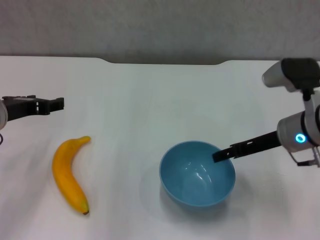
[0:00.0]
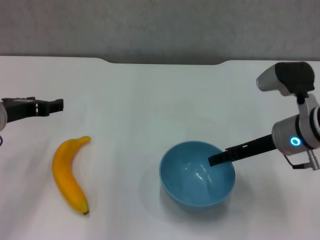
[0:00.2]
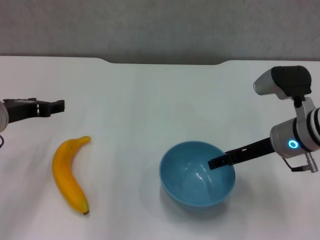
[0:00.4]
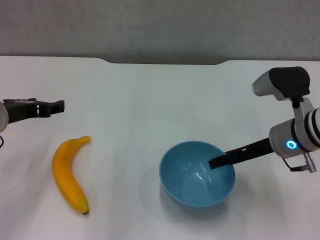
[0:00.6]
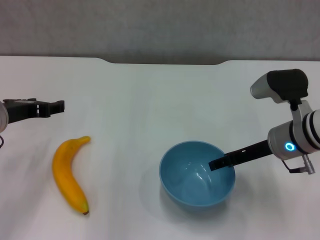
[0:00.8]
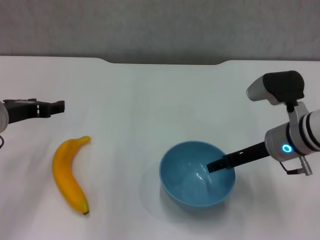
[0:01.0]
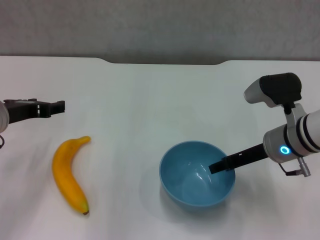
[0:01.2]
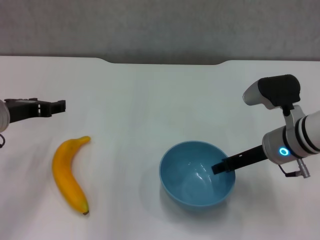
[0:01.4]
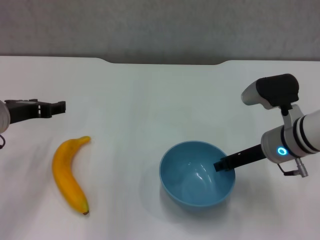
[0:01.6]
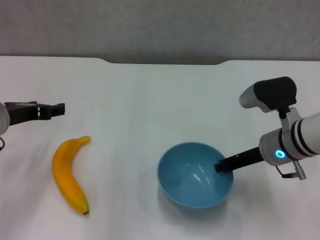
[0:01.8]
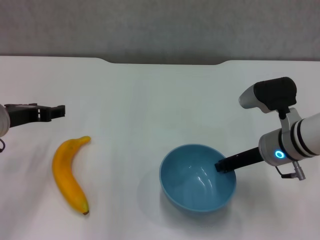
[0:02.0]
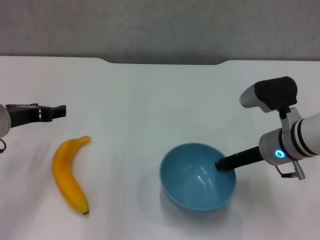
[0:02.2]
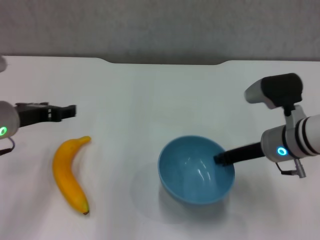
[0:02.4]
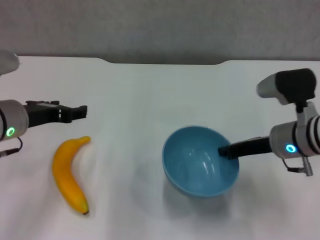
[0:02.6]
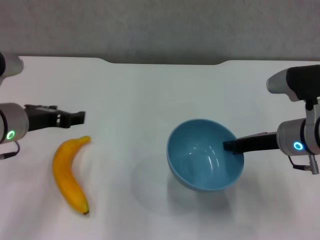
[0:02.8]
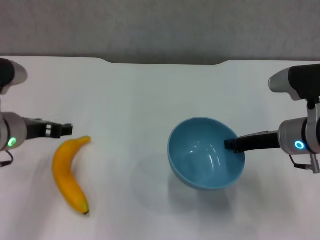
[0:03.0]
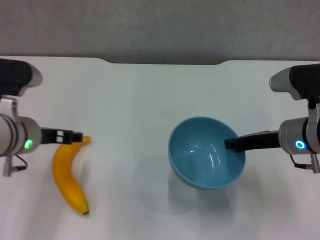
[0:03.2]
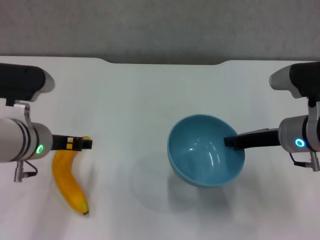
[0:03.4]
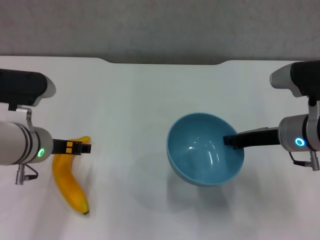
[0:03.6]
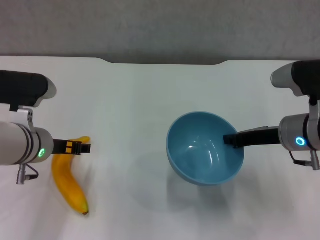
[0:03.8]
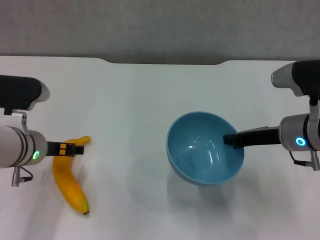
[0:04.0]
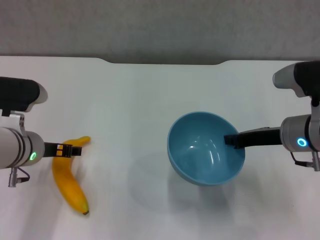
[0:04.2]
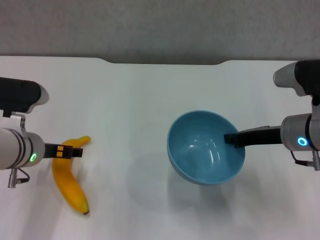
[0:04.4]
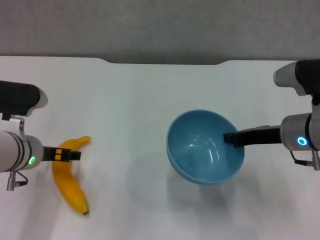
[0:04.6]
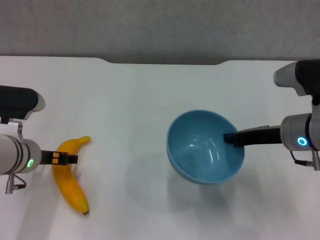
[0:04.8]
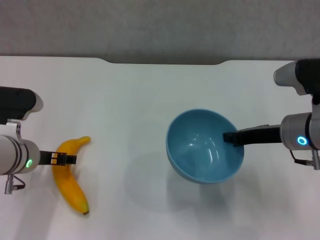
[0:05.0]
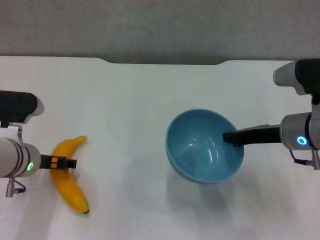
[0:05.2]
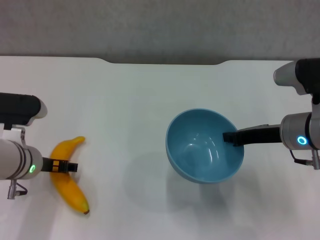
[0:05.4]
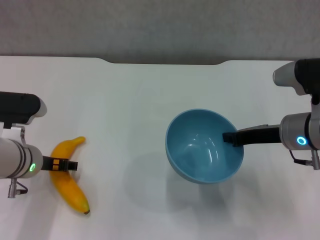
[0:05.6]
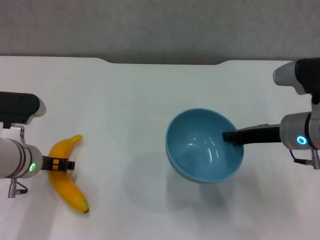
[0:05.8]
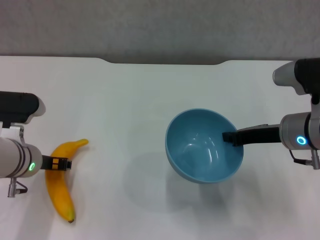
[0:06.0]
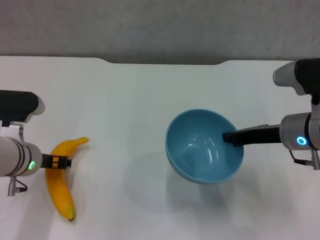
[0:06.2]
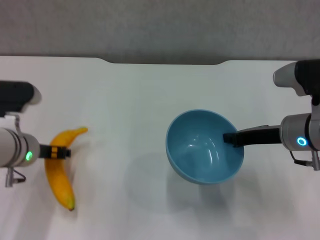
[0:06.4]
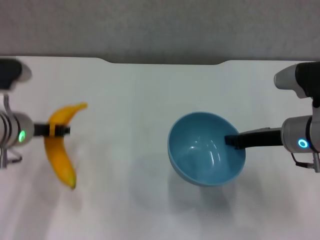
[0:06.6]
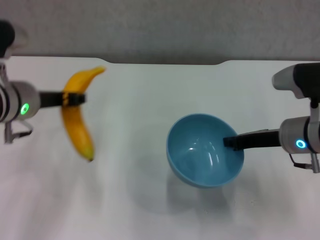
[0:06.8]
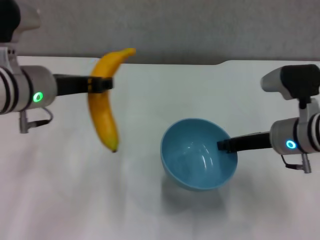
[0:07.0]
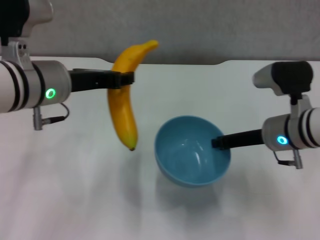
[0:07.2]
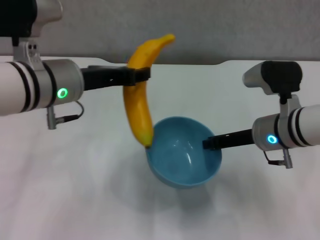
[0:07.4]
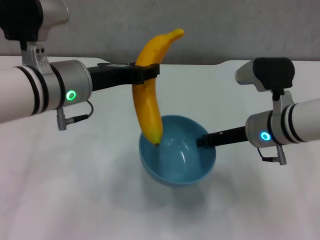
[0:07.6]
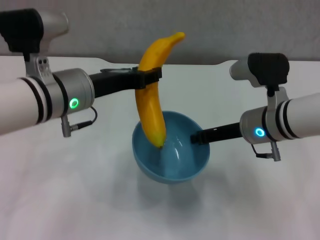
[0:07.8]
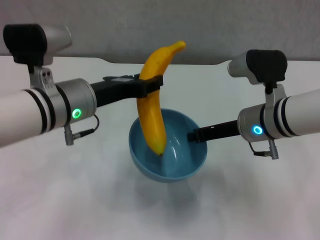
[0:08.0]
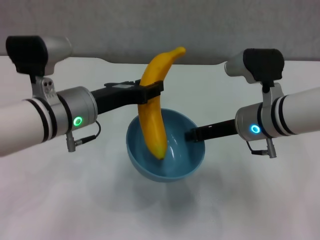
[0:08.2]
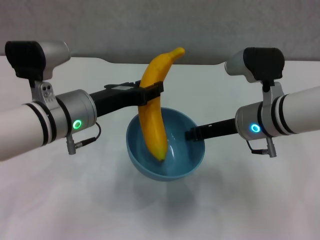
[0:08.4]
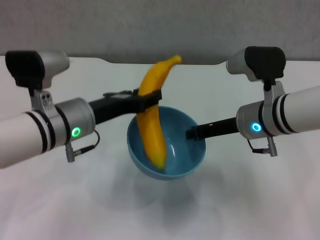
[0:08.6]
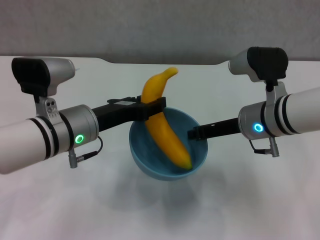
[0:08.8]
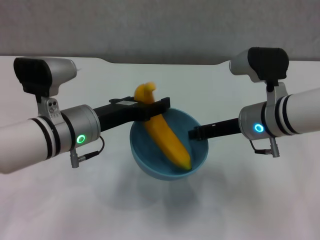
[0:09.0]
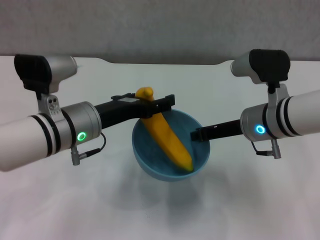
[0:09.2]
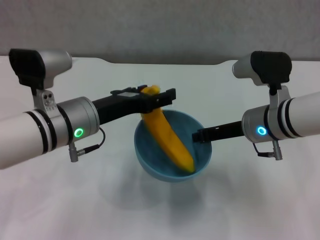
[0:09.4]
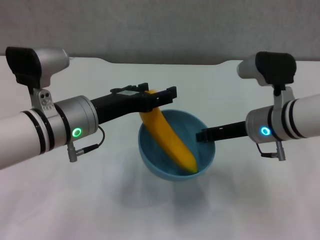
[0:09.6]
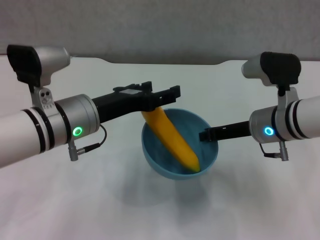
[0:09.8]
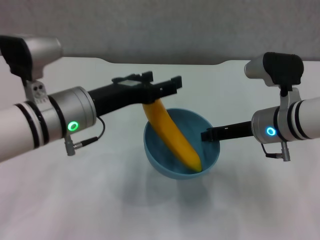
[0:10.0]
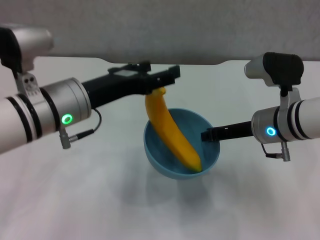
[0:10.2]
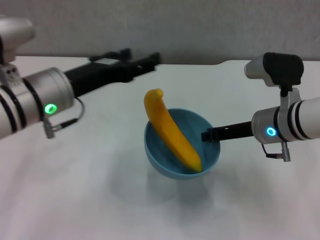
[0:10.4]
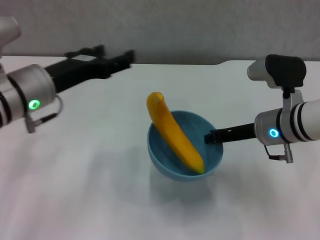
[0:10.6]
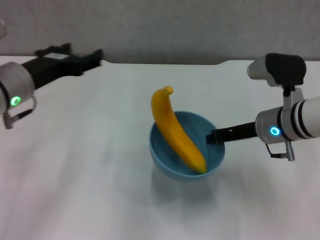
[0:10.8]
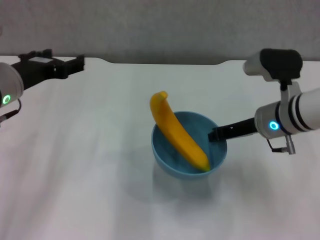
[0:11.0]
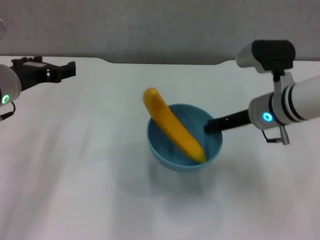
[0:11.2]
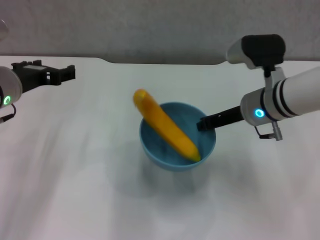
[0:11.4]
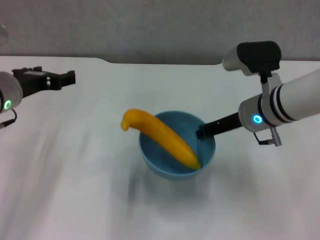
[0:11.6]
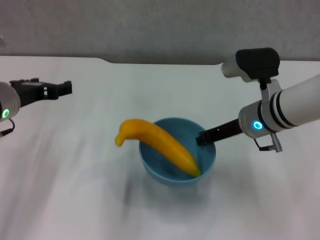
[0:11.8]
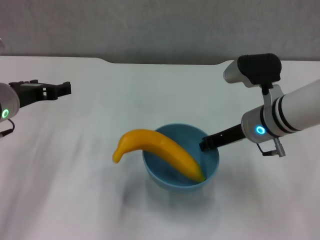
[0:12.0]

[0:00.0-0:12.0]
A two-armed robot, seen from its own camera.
Step, 0:02.2 to 0:02.6: Lift the blue bowl with right gripper.
Step, 0:03.0 to 0:06.0: Grasp the banana with left gripper.
Step, 0:06.2 to 0:10.0: Place the banana in the blue bowl with left gripper.
0:00.0 to 0:01.6: The grippers move only a little.
0:01.6 to 0:03.0: The right gripper closes.
0:03.0 to 0:04.4: The grippers stay close to where they were, moving slightly.
0:04.4 to 0:06.0: The grippers move only a little.
0:06.0 to 0:07.6: The left gripper heads upward and to the right, covering some 15 cm, and closes its fingers.
0:07.6 to 0:09.0: The left gripper heads downward, covering some 10 cm.
0:09.0 to 0:10.4: The left gripper goes roughly 5 cm upward, and opens its fingers.
0:10.4 to 0:12.0: The left gripper goes some 10 cm to the left.

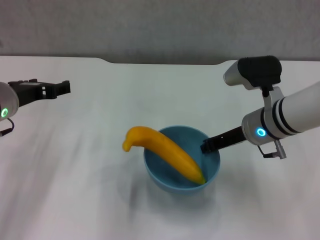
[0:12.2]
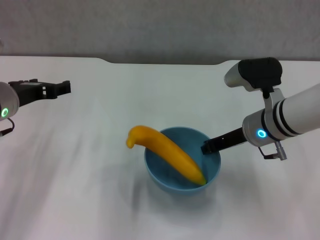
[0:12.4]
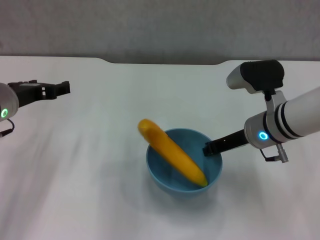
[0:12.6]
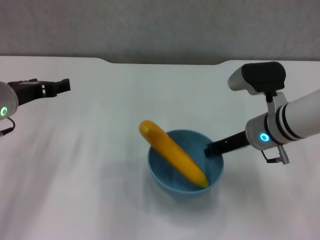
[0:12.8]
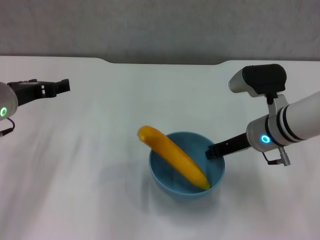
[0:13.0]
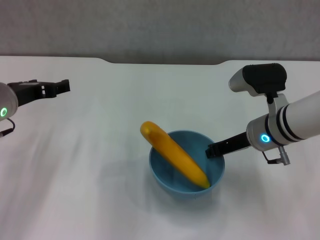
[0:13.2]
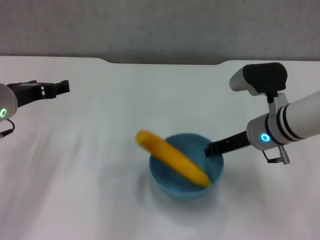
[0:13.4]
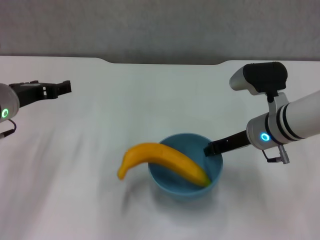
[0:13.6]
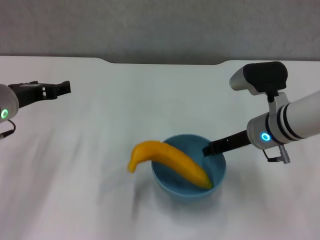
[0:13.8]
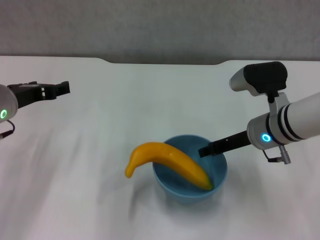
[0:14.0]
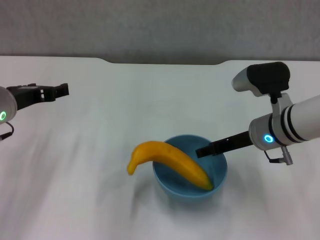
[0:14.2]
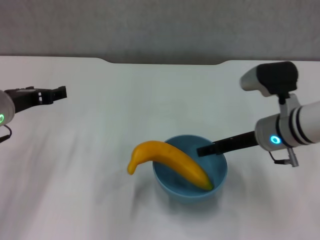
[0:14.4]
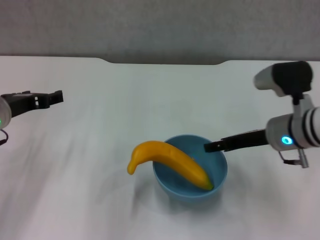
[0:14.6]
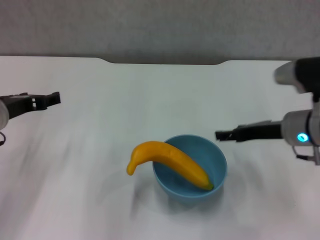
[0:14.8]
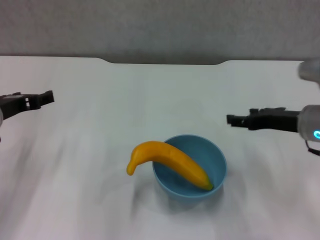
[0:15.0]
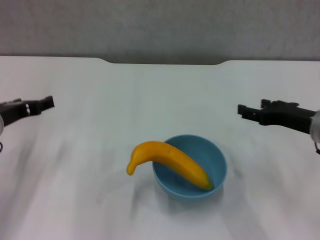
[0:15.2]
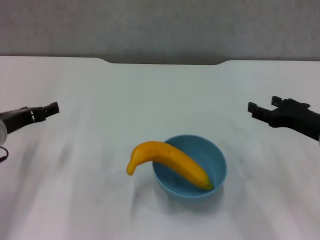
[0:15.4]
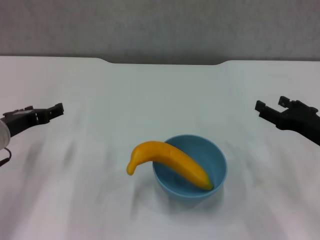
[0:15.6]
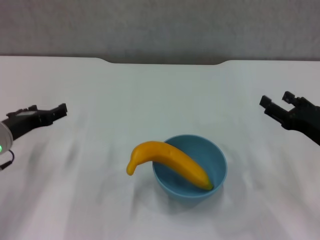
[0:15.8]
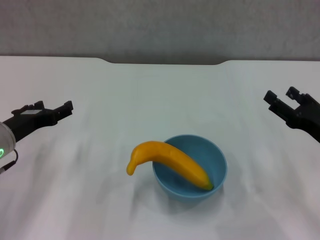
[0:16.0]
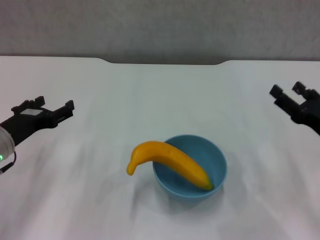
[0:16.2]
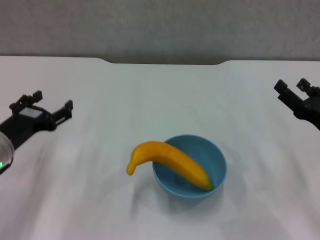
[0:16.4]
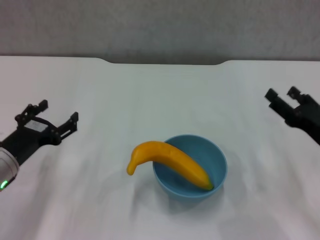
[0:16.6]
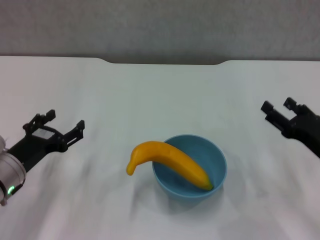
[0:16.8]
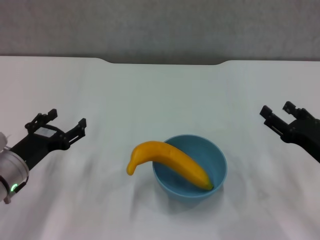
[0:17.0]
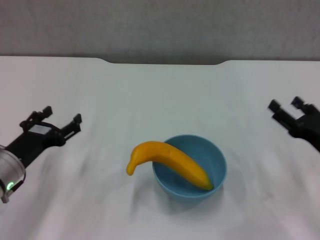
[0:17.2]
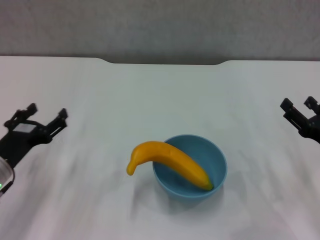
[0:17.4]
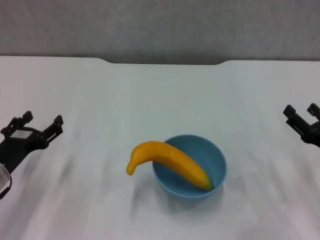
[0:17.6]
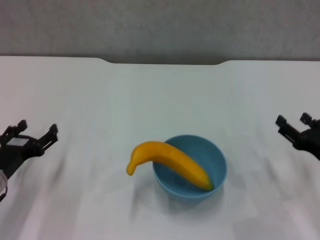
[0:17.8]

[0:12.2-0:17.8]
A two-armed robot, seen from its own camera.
Step, 0:12.2 to 0:14.4: Place the bowl on the table with right gripper.
0:12.2 to 0:13.6: The two grippers keep their place.
0:13.6 to 0:15.0: The right gripper heads to the right, covering approximately 5 cm, and opens its fingers.
0:15.0 to 0:16.4: The right gripper shifts approximately 10 cm backward and to the right, while the left gripper heads downward, covering about 5 cm.
0:16.4 to 0:17.8: The left gripper shifts by roughly 5 cm.
